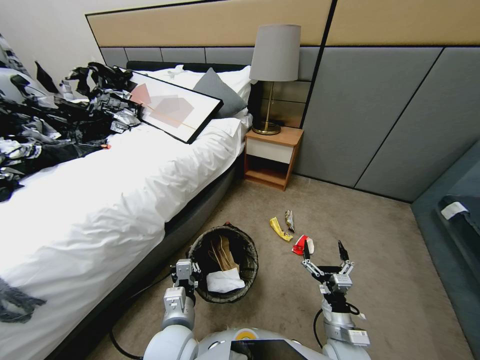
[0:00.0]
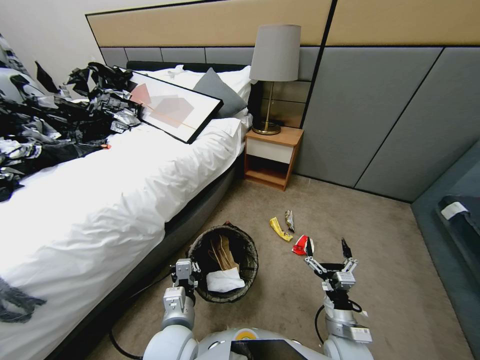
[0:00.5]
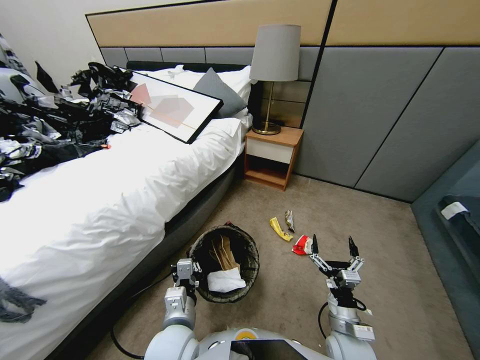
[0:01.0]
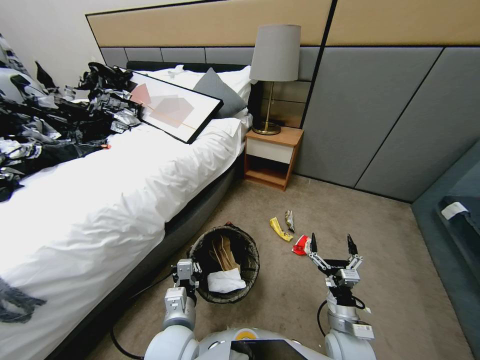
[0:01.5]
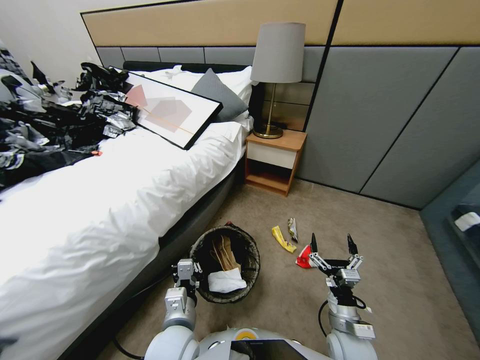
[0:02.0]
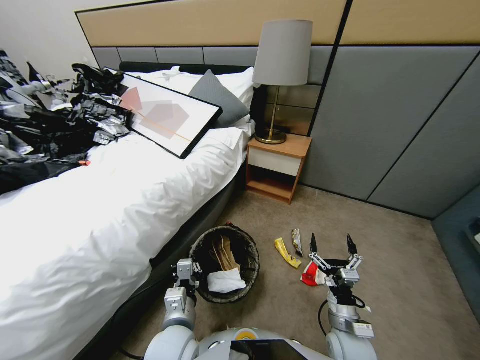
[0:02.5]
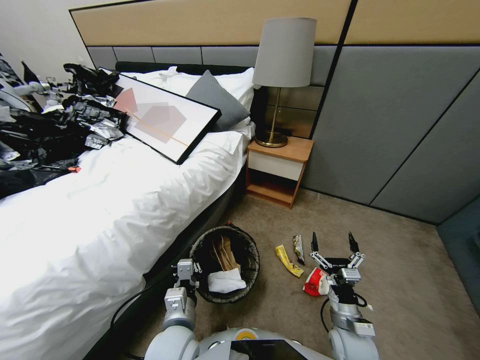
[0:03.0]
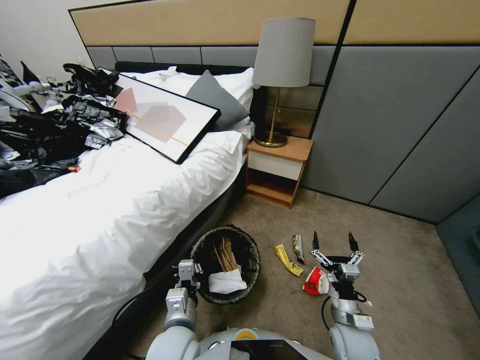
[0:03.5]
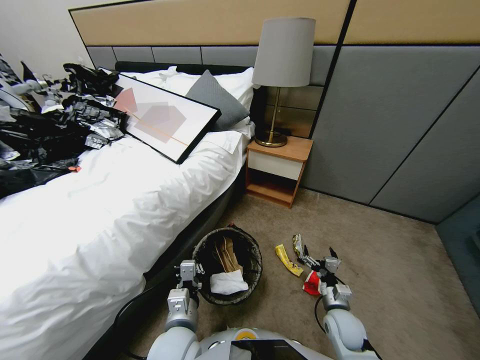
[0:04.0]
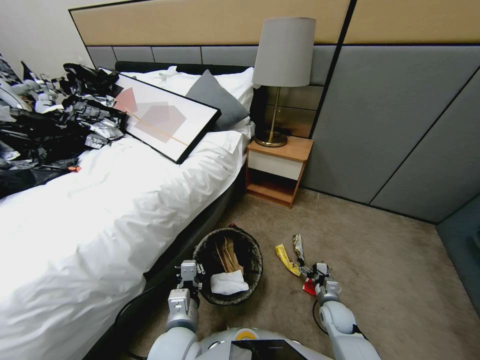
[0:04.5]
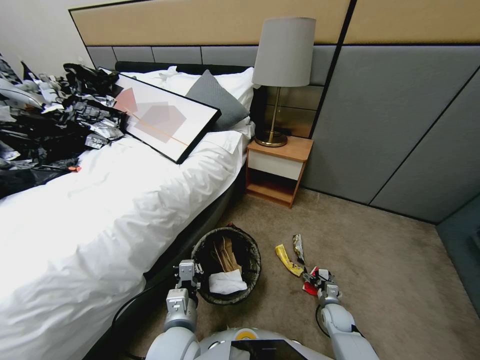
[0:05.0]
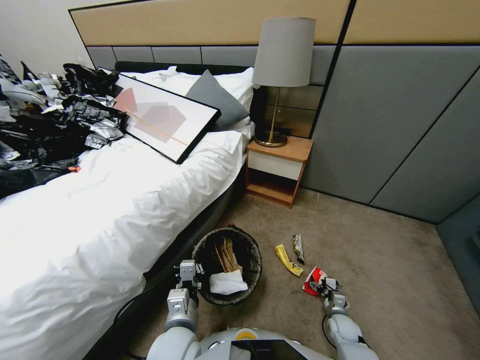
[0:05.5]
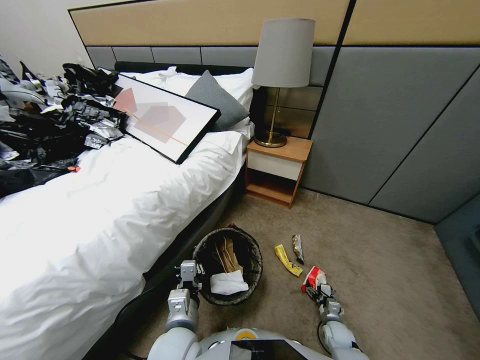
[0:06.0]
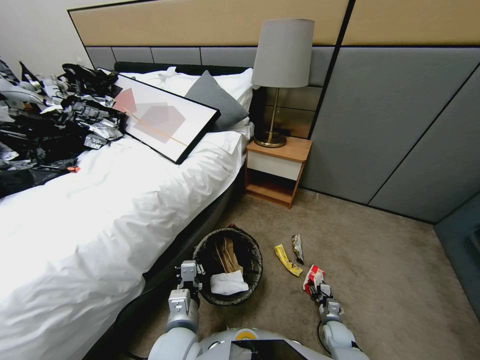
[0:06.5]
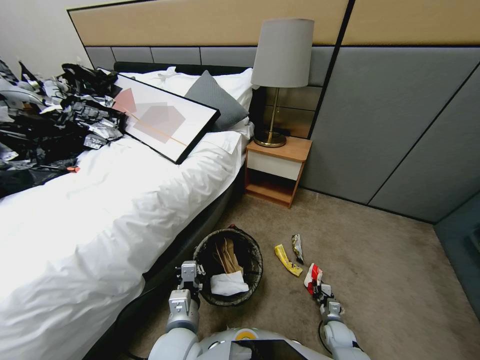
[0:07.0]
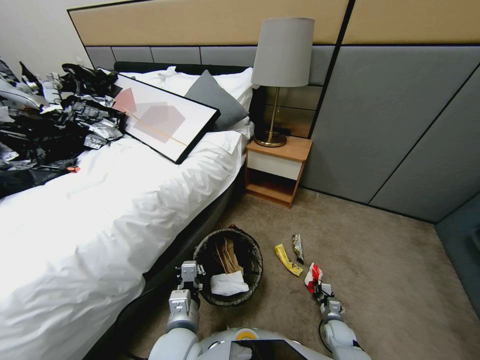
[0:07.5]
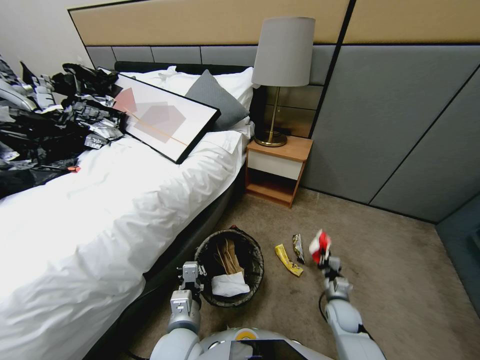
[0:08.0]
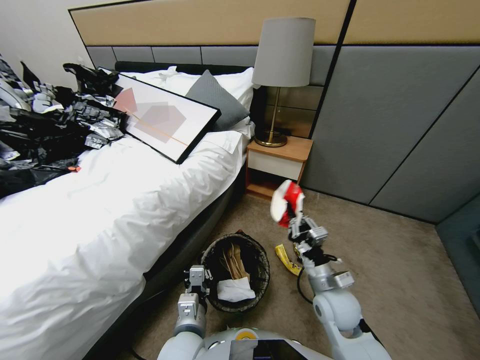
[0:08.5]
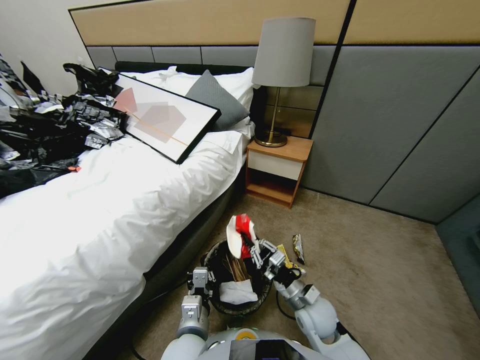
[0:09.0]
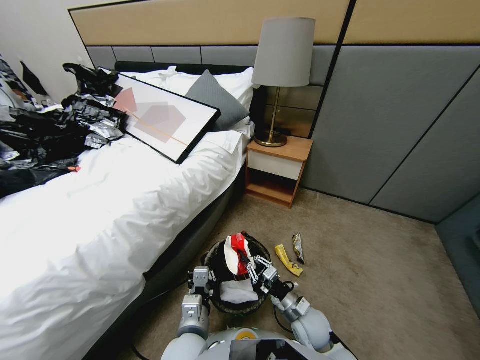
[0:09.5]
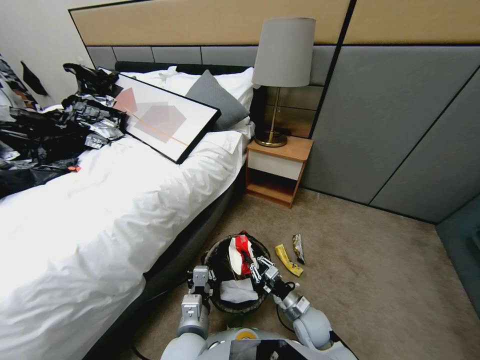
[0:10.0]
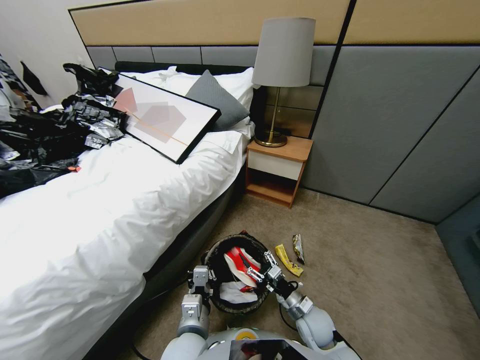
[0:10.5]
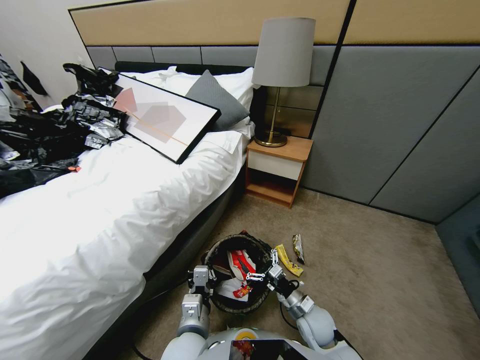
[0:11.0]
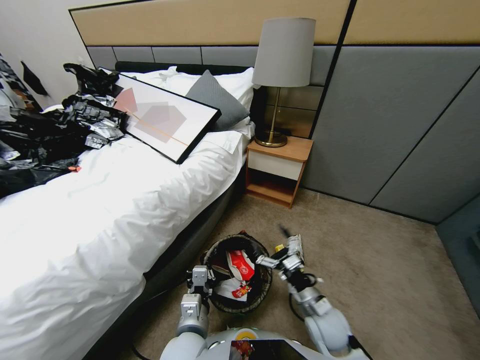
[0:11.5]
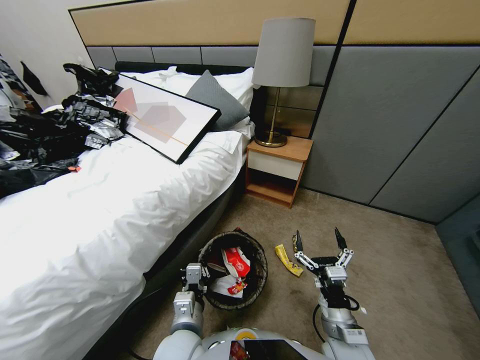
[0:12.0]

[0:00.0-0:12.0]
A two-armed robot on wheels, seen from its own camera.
Task of the whole recording: Pick up the trash bin, then pick up the garbage from the floor and place it into the trash bin.
0:02.0 to 0:04.0: The right gripper travels forward and downward by some 10 cm.
0:04.0 to 0:06.0: The right gripper shifts about 15 cm downward.
0:06.0 to 0:08.0: The right gripper heads upward, covering roughly 20 cm, and closes.
0:08.0 to 0:10.0: The right gripper goes roughly 10 cm to the left, and moves some 10 cm upward and comes back.
0:10.0 to 0:12.0: The right gripper heads upward and backward, covering about 10 cm, and opens.

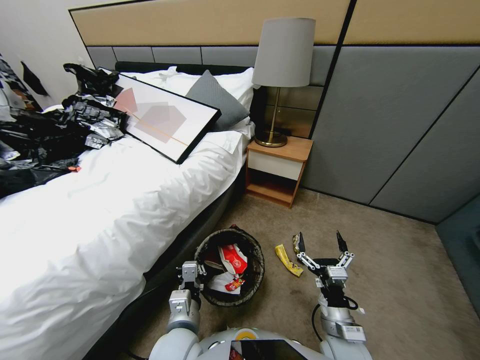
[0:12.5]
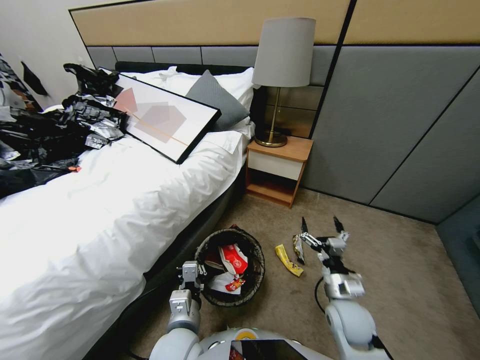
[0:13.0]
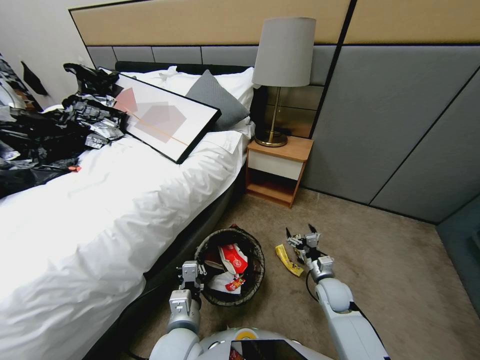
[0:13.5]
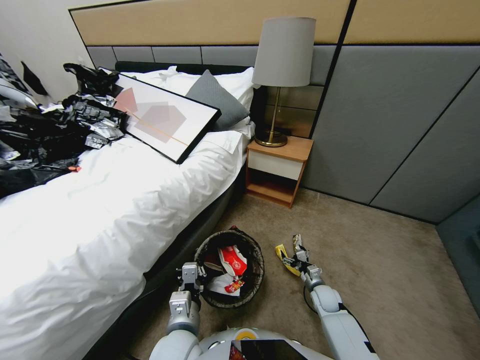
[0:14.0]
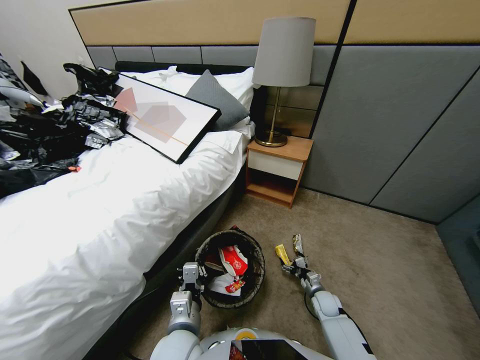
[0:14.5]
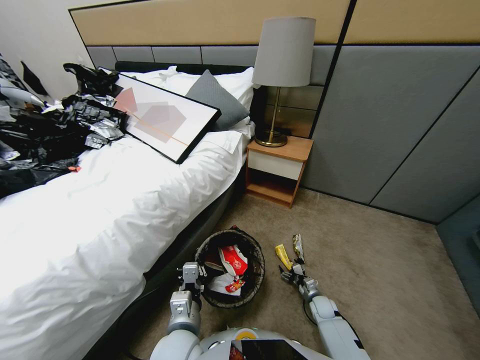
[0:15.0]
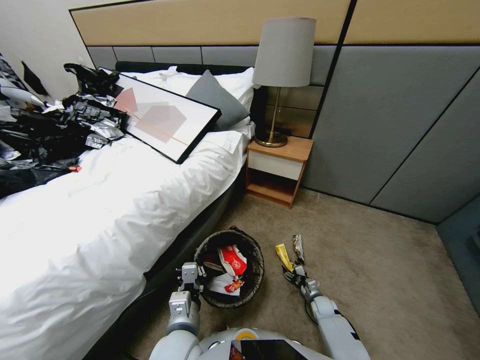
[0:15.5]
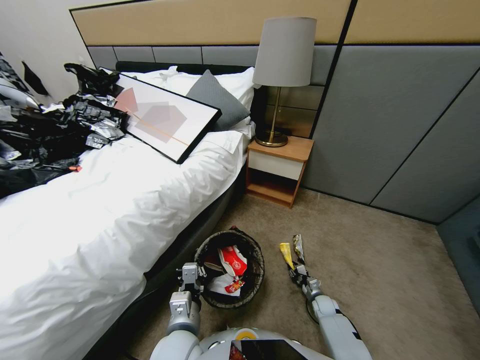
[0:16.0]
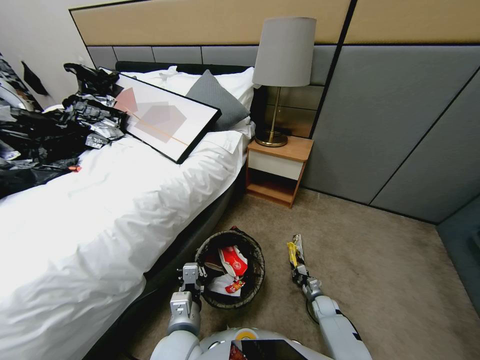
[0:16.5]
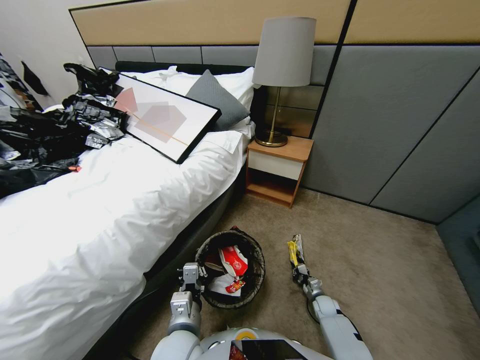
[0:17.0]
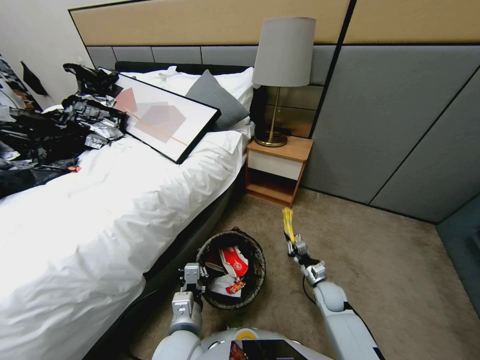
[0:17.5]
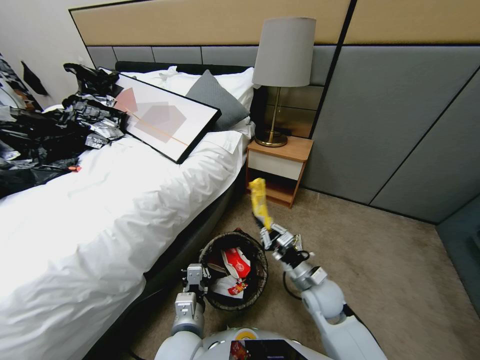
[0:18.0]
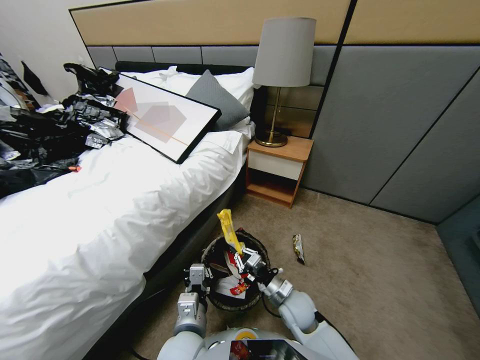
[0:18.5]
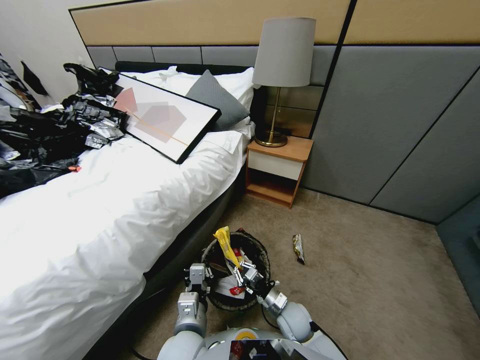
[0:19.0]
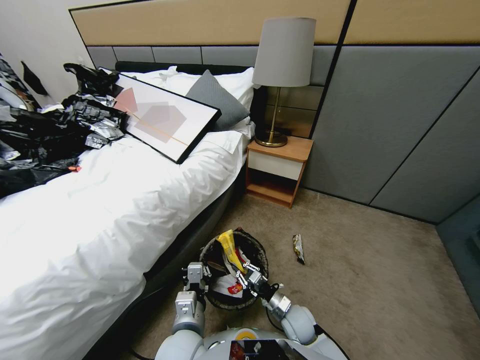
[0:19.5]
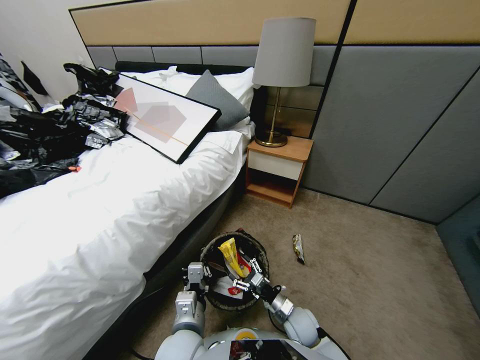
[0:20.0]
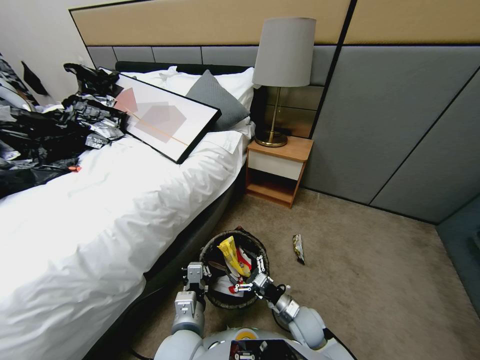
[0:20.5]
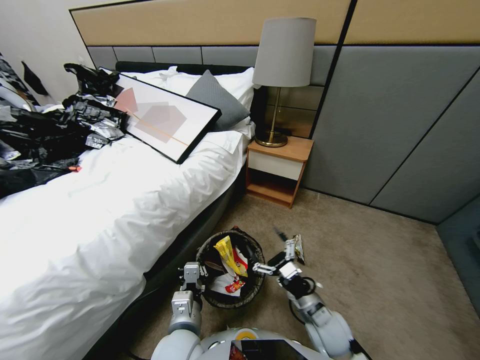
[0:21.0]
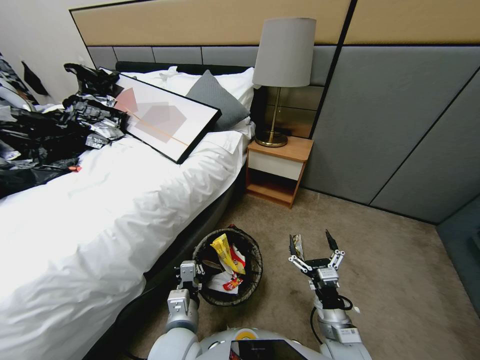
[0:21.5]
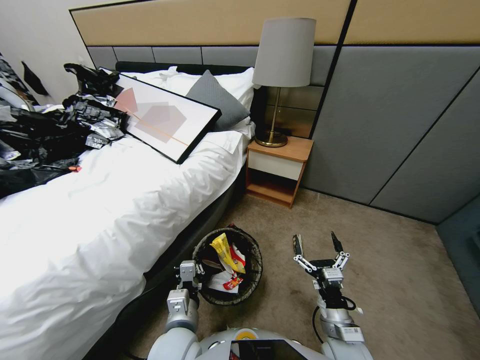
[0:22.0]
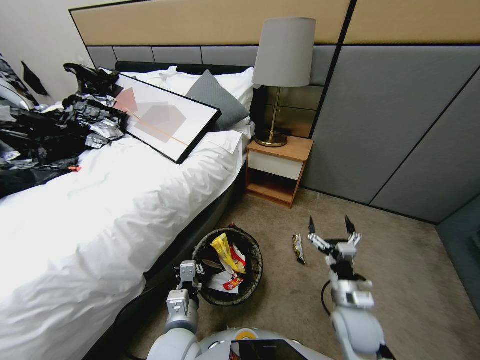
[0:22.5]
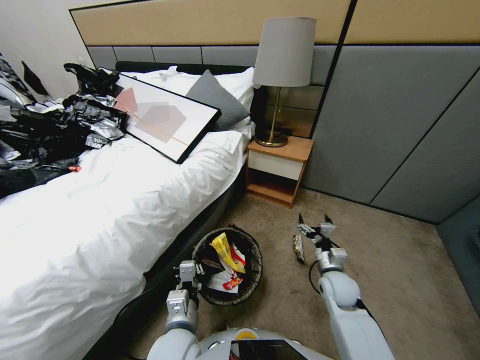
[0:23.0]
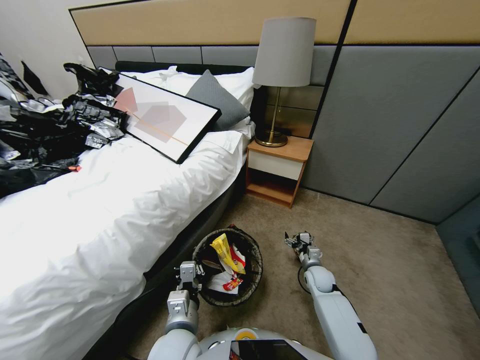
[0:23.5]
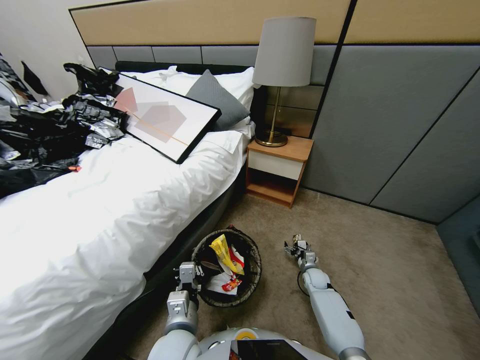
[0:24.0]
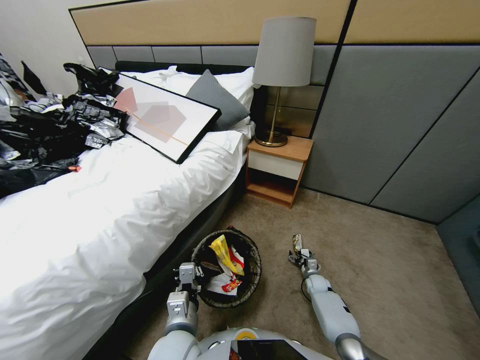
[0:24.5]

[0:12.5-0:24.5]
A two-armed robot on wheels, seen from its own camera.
Task of the whole recording: Pick up the trash bin, then pick up the garbage from the floor and place it into the trash bin.
0:12.5 to 0:14.5: The right gripper travels downward, forward and to the right by roughly 25 cm.
0:14.5 to 0:16.5: The right gripper travels downward by about 5 cm, and closes its fingers.
0:16.5 to 0:18.5: The right gripper is displaced upward and to the left by some 30 cm.
0:18.5 to 0:20.5: The right gripper moves some 5 cm, and opens its fingers.
0:20.5 to 0:22.5: The right gripper shifts approximately 15 cm upward and to the right.
0:22.5 to 0:24.5: The right gripper is displaced downward and forward by roughly 30 cm.

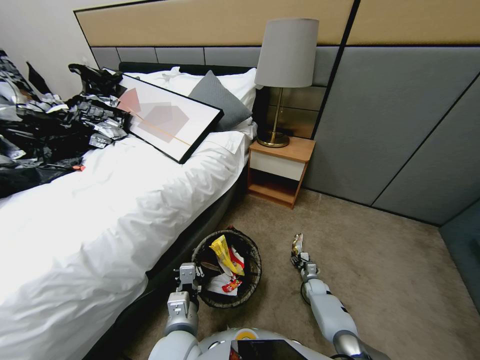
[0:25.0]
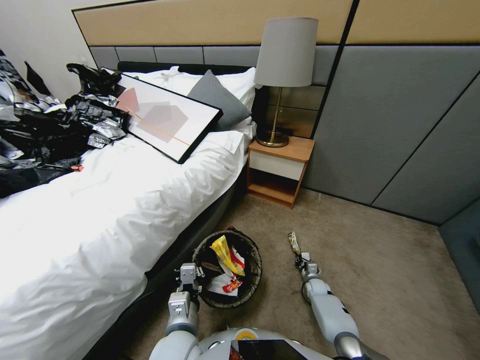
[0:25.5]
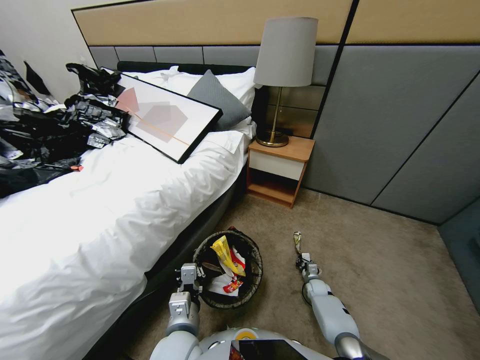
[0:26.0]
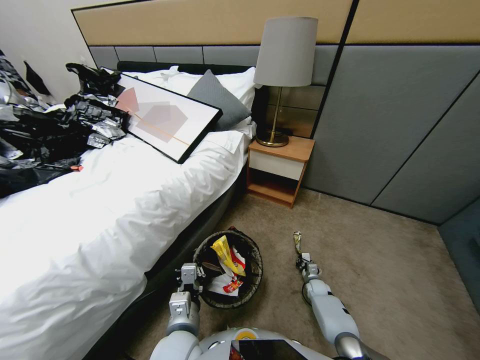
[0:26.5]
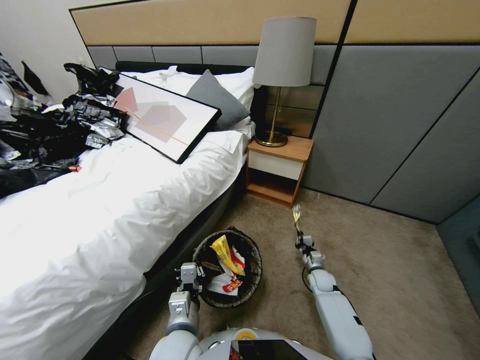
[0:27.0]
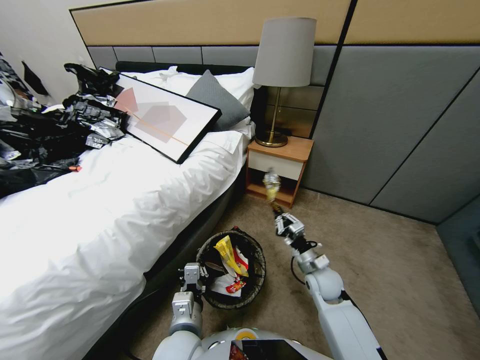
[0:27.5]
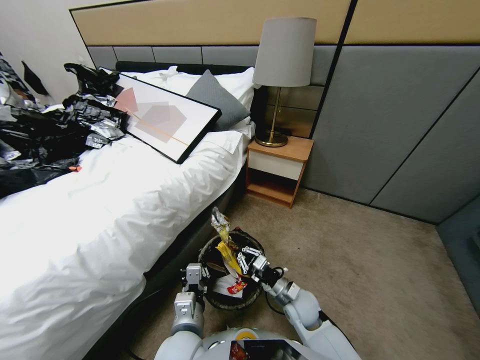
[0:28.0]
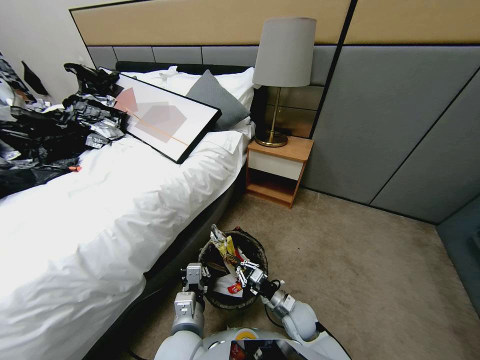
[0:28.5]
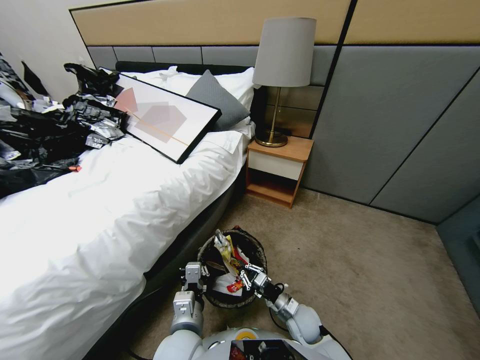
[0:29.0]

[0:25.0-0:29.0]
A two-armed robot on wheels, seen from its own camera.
Task of the whole recording: Pick up the trash bin, then pick up the garbage from the floor and place it into the trash bin.
0:25.0 to 0:27.0: The right gripper moves upward, about 15 cm, and closes.
0:27.0 to 0:29.0: The right gripper is displaced backward and to the left by about 15 cm.
